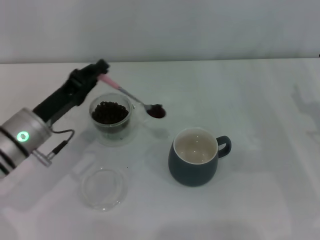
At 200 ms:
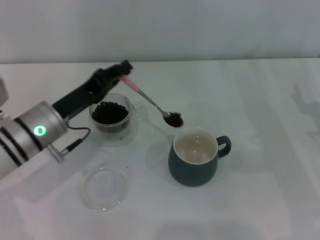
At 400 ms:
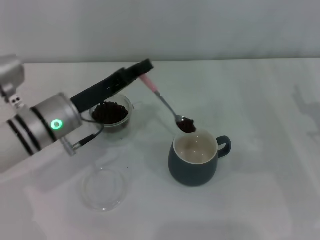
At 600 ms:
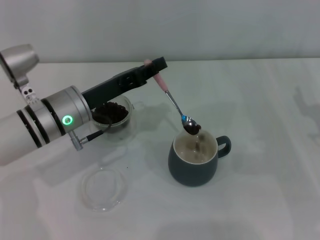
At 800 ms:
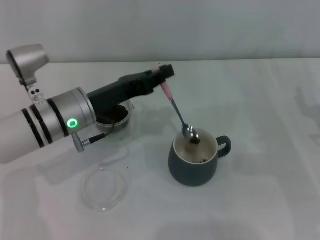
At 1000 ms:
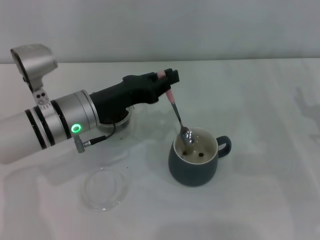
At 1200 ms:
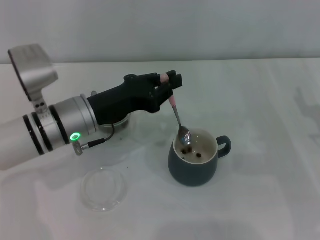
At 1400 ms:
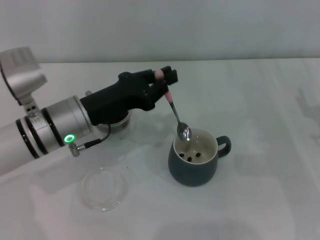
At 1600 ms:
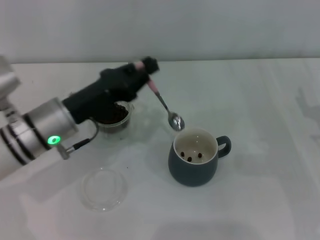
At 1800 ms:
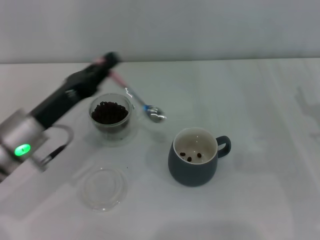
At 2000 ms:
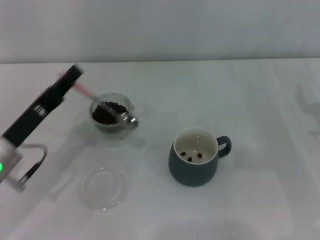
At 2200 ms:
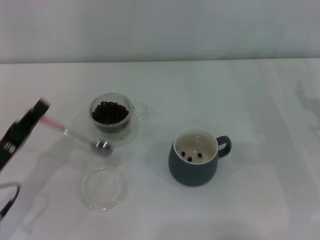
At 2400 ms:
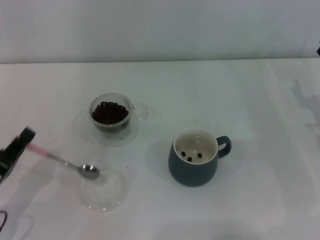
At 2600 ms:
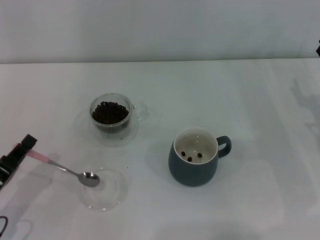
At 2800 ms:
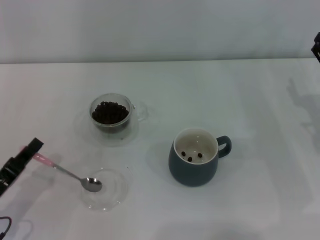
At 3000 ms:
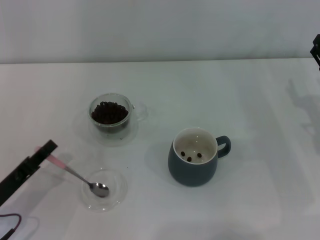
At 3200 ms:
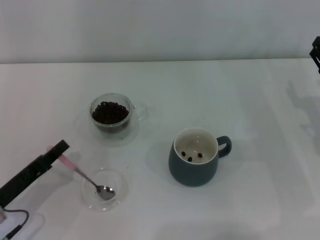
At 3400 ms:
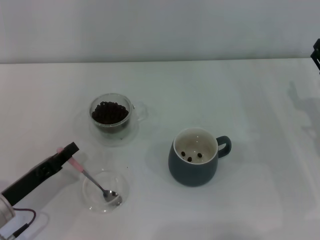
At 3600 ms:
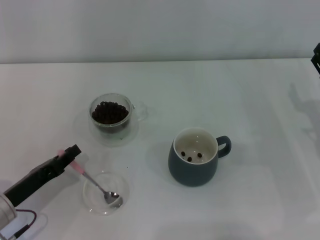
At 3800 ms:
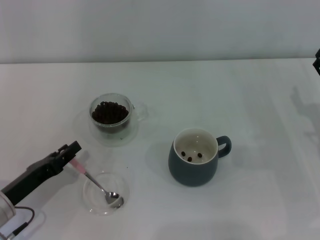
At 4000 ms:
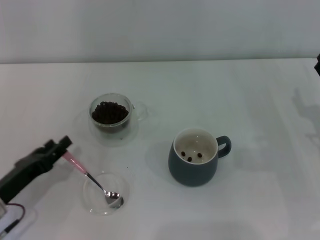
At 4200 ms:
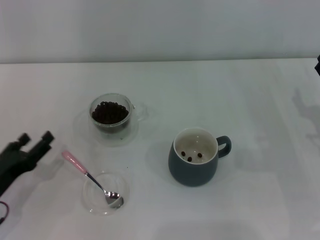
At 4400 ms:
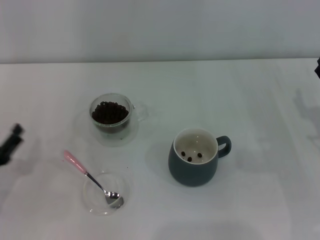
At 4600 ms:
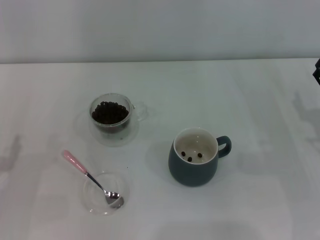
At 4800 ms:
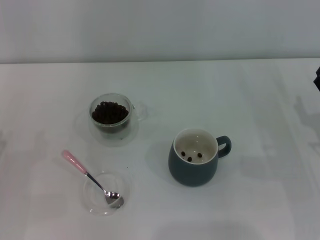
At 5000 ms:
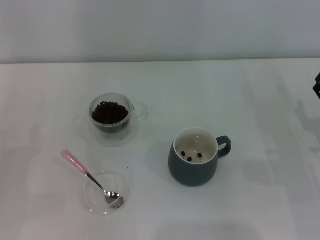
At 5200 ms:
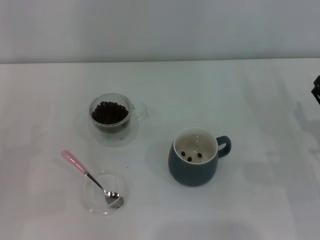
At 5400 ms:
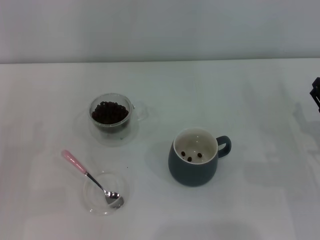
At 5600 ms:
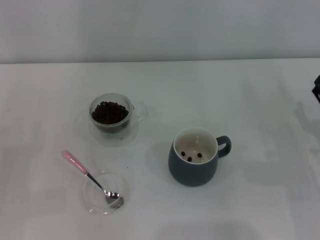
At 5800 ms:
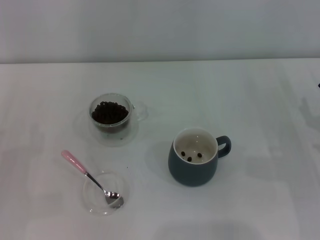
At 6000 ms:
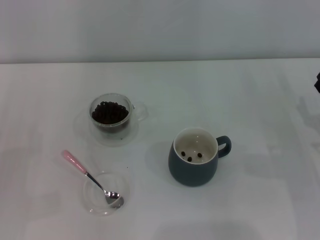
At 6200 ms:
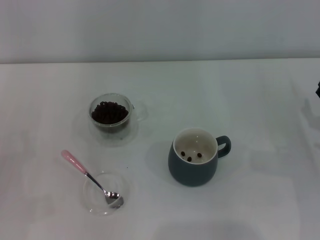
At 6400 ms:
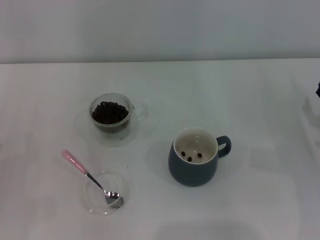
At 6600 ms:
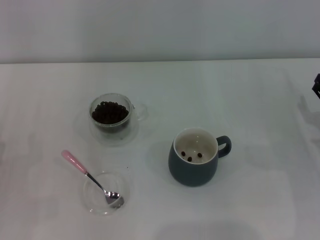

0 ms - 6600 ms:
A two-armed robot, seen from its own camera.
Task of the whole recording: Use a pink spoon to take out the coffee beans from the glass and pour them into the gray cup.
Step, 1400 ms - 4000 ms: Place the spoon back in its original place with the right gripper.
1600 ms - 3200 ms: The left gripper moves to the left, backward and downward, approximately 15 cm.
3200 ms - 5000 ms: The left gripper travels to the left by approximately 5 cm, and opens its fingers. The right gripper ends up approximately 5 cm from where it was.
